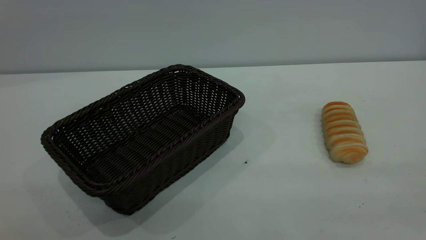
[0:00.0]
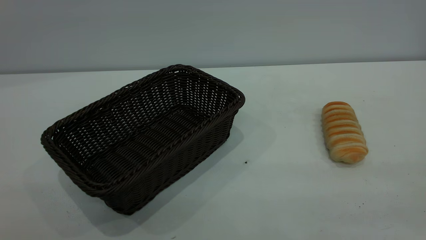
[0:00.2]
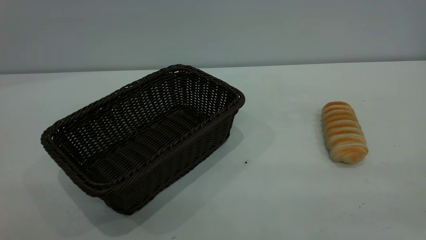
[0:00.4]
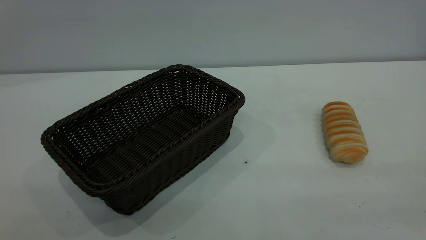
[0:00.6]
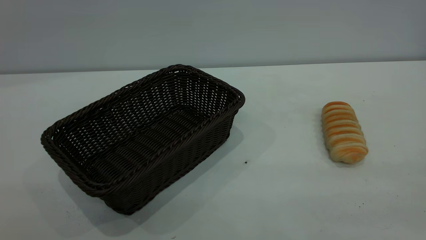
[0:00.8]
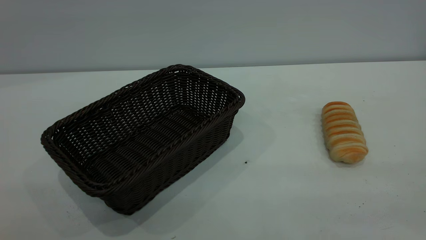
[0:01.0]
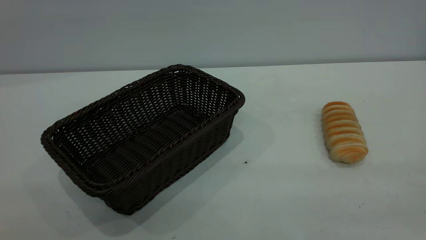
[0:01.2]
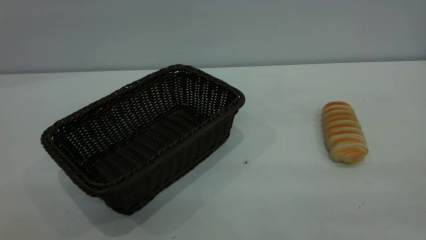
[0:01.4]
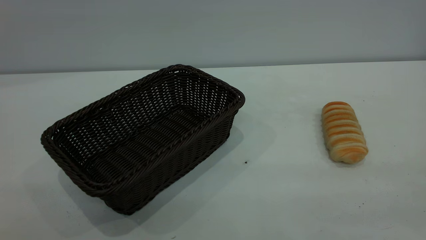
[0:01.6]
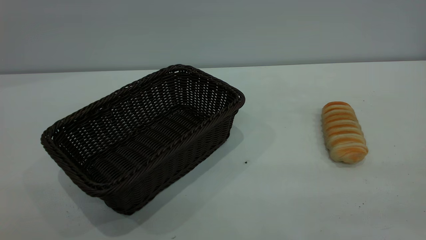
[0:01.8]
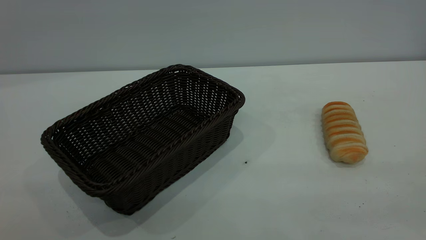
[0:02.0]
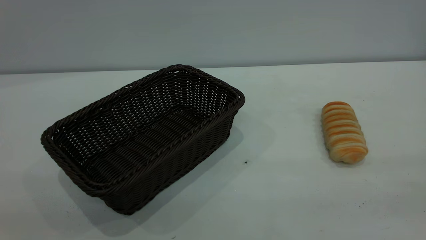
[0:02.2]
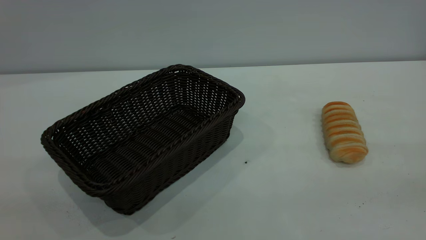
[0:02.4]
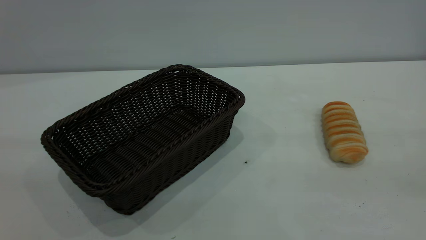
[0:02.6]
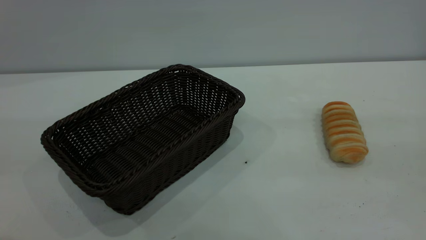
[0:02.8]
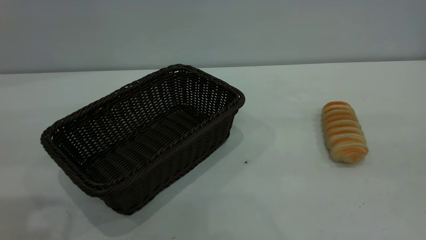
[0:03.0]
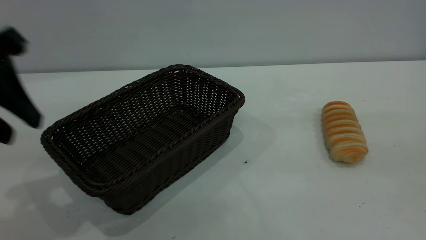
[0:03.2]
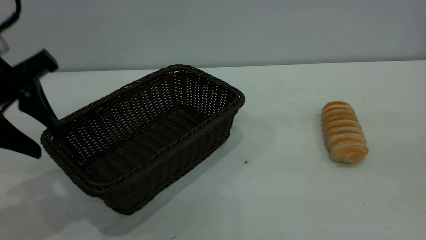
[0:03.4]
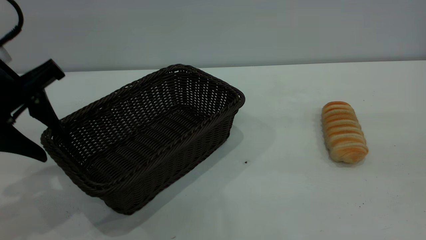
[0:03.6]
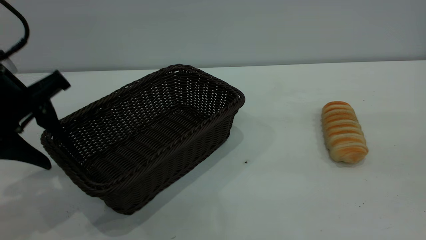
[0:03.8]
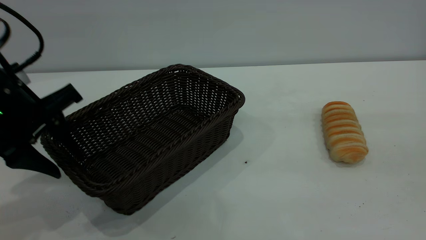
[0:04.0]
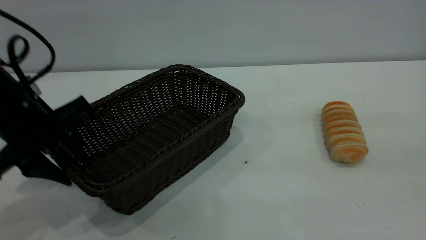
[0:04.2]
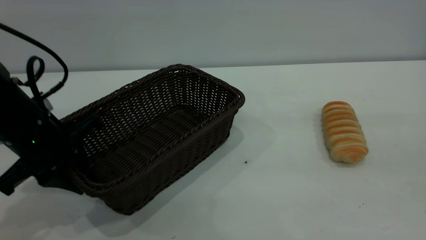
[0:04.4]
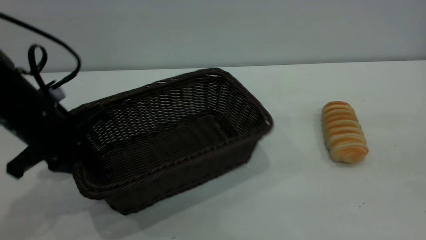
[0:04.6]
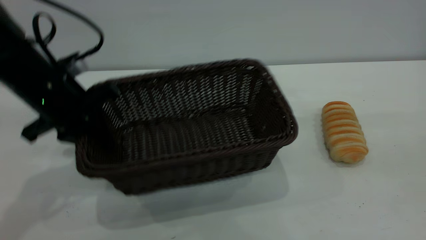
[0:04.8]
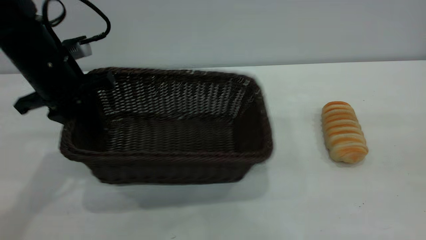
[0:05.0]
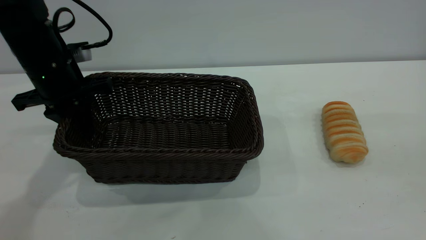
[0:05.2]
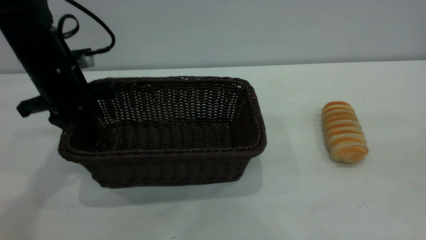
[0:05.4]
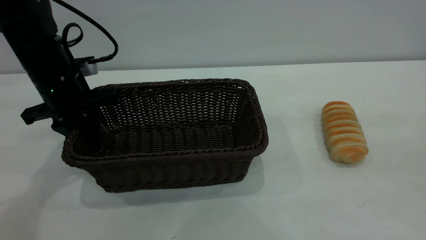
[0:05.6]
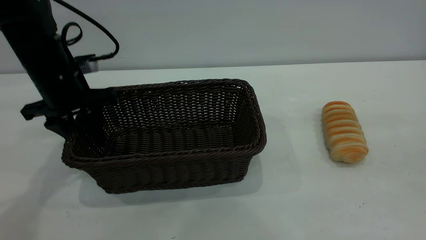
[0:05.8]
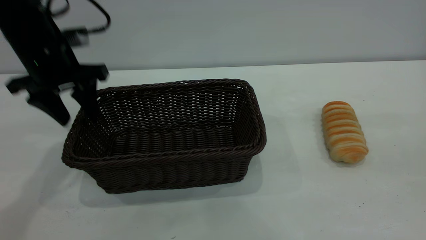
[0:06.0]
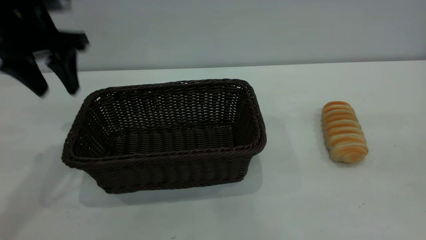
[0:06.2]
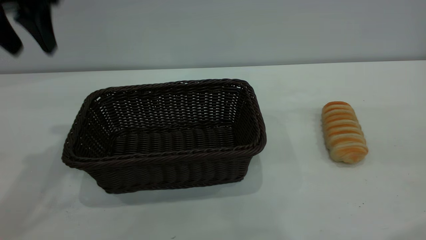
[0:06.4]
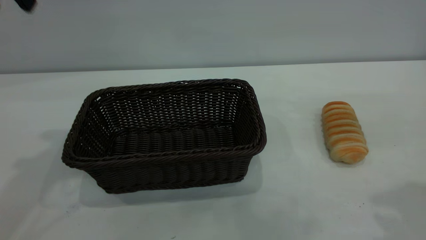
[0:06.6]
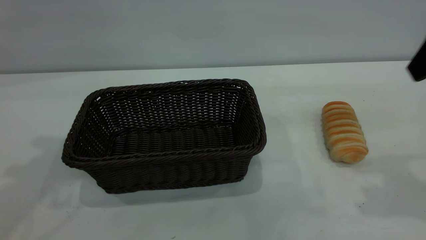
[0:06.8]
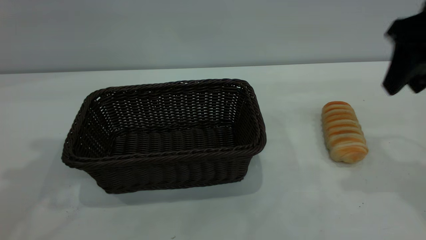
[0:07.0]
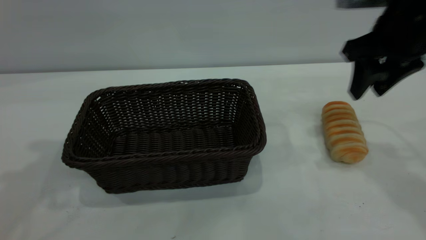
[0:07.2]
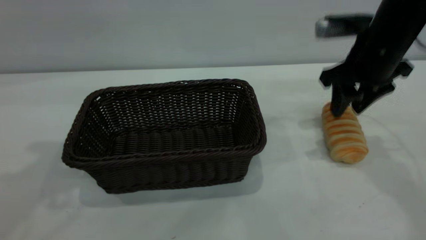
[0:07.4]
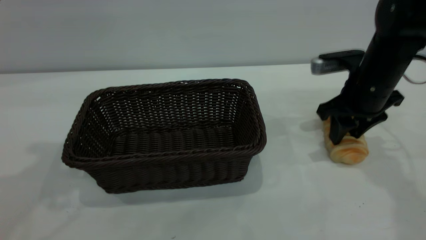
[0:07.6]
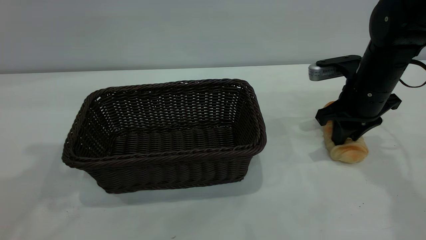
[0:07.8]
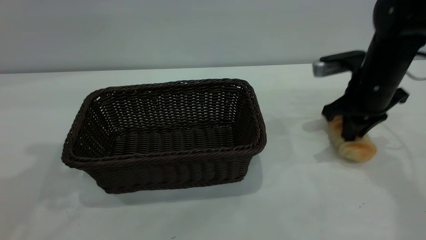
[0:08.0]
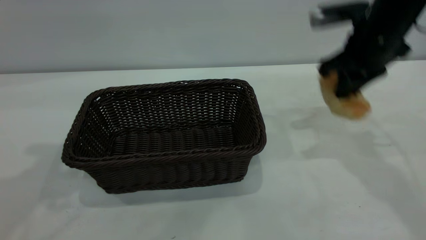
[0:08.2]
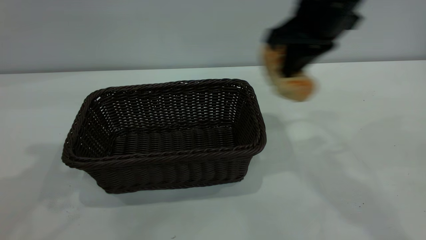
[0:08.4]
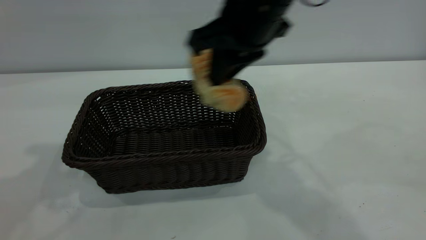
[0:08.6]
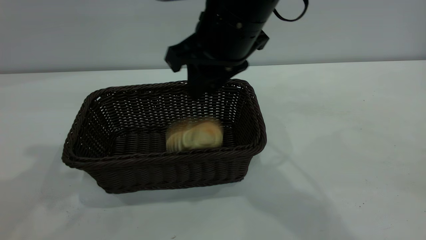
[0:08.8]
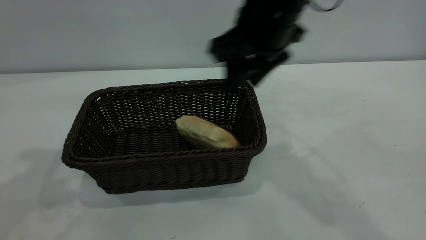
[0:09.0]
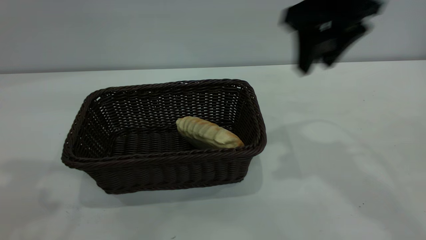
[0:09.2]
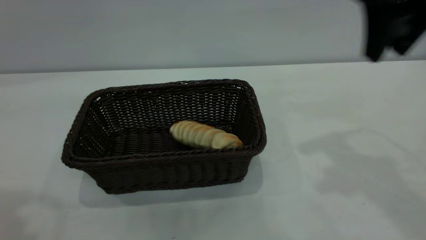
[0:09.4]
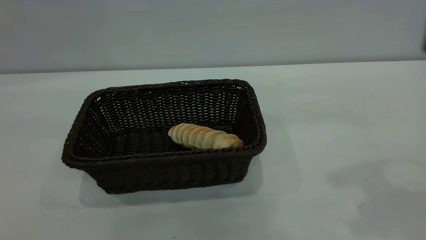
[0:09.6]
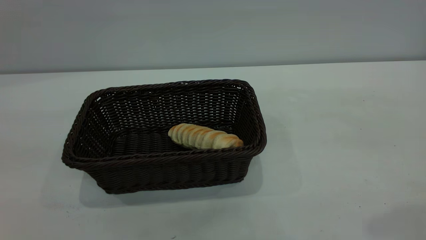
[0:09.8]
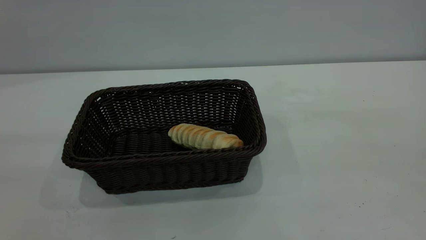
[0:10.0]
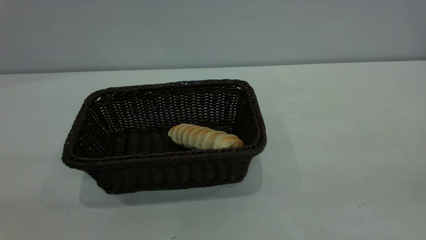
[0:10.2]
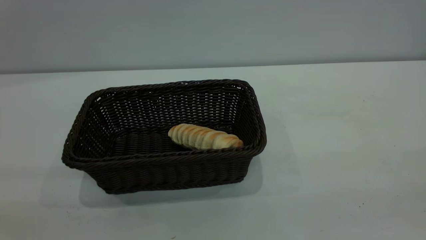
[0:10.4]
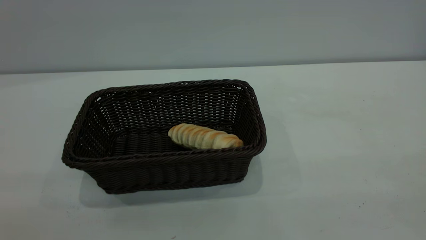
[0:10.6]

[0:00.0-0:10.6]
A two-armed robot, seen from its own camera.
Task of the whole recording: One hand grasps the black basket and places it in the middle of the table, while the other hand picks up the long bread and puts it into the black basket.
Step, 0:00.0 to 0:06.0: Move the basket to the center of view.
Step, 0:08.4 to 0:09.0: place the bread into the basket.
0:00.0 to 0:01.6: The two grippers keep their place.
0:03.0 to 0:04.6: The left gripper shifts about 20 cm downward and forward, and closes.
0:04.6 to 0:06.0: The left gripper heads forward and upward, covering approximately 10 cm, and opens.
0:06.0 to 0:07.6: The right gripper is displaced forward and downward by approximately 35 cm; the left gripper travels upward and backward by some 20 cm.
0:07.6 to 0:09.0: The right gripper goes roughly 20 cm upward and to the left, and closes and opens again.
0:09.0 to 0:10.6: The left gripper goes about 30 cm backward; the right gripper moves backward and to the right, some 40 cm.
